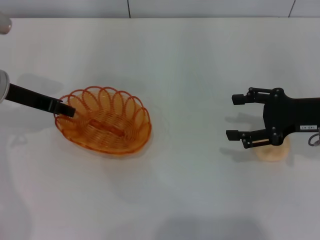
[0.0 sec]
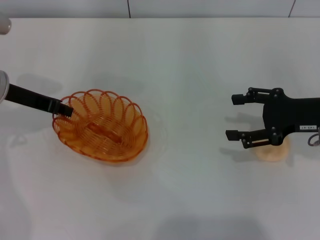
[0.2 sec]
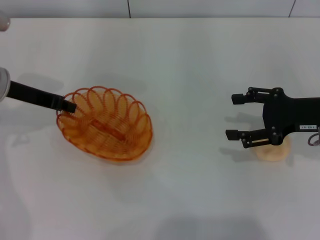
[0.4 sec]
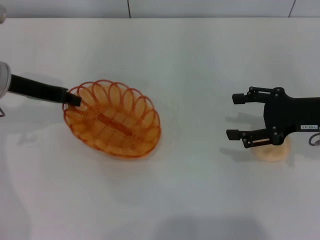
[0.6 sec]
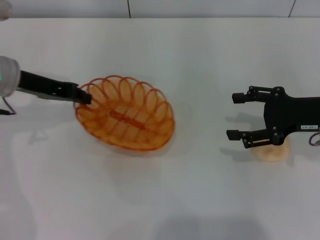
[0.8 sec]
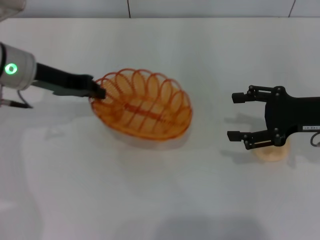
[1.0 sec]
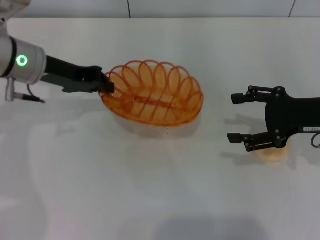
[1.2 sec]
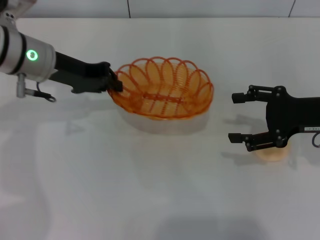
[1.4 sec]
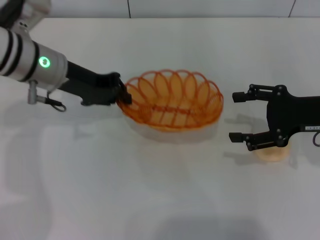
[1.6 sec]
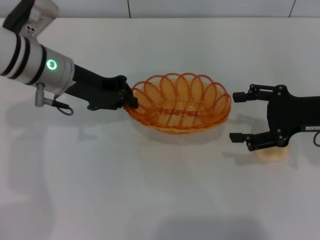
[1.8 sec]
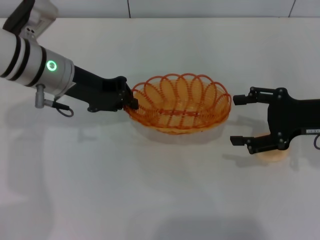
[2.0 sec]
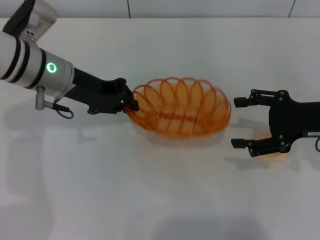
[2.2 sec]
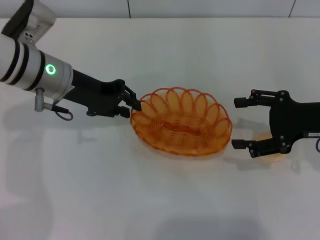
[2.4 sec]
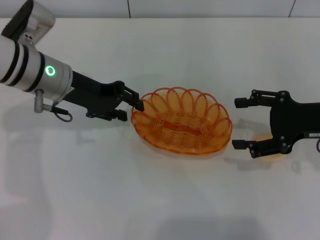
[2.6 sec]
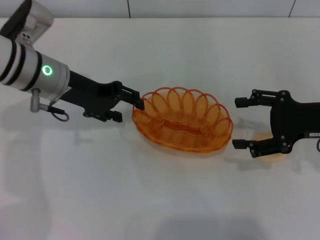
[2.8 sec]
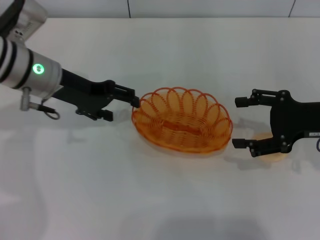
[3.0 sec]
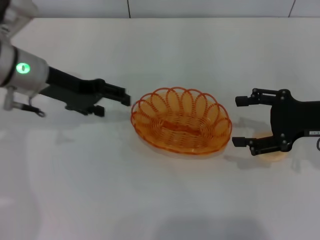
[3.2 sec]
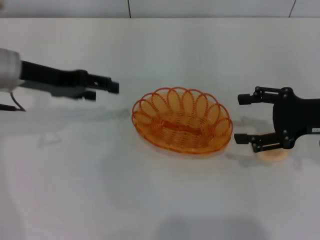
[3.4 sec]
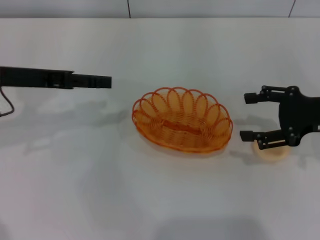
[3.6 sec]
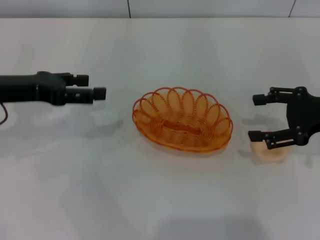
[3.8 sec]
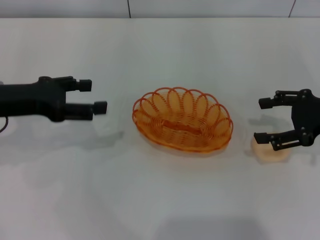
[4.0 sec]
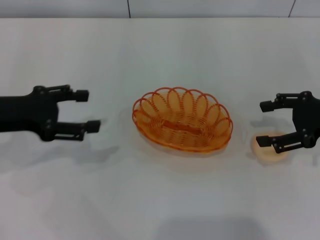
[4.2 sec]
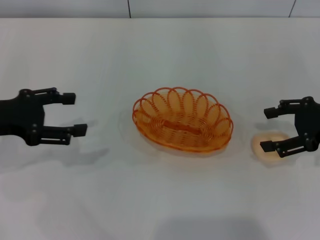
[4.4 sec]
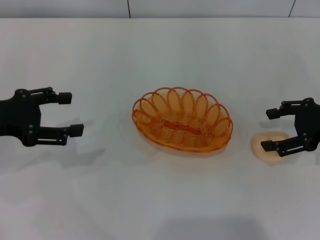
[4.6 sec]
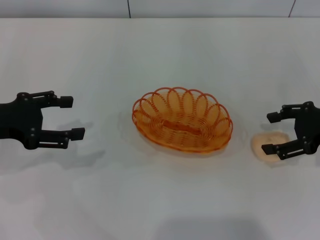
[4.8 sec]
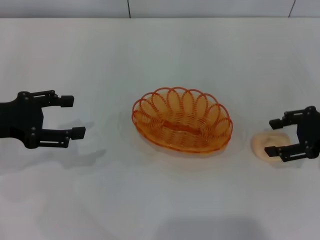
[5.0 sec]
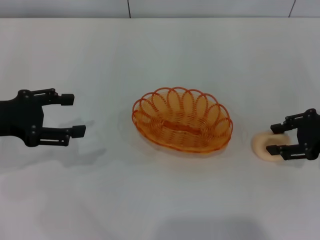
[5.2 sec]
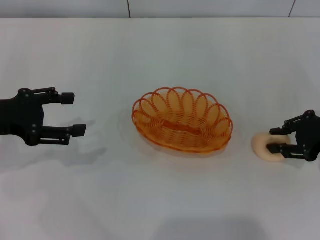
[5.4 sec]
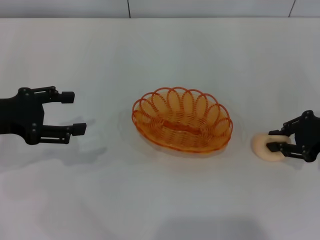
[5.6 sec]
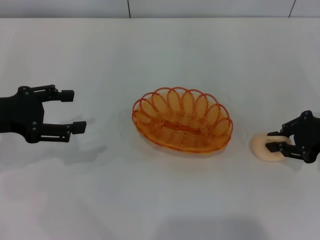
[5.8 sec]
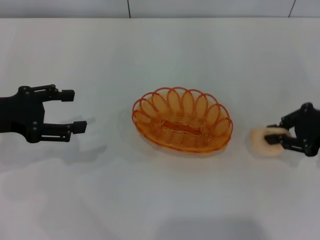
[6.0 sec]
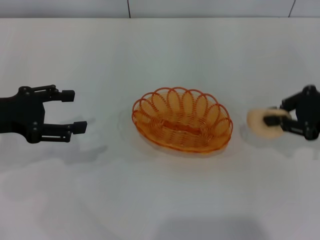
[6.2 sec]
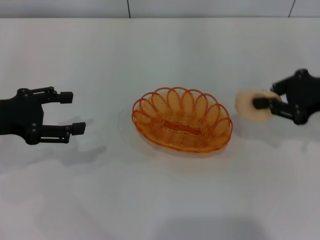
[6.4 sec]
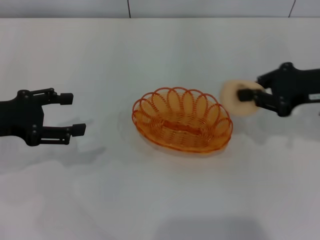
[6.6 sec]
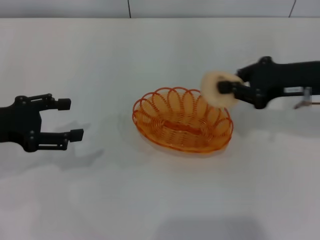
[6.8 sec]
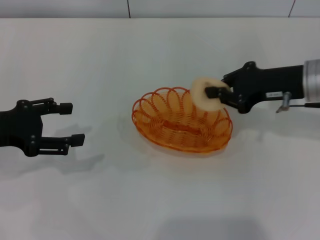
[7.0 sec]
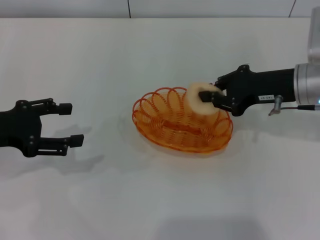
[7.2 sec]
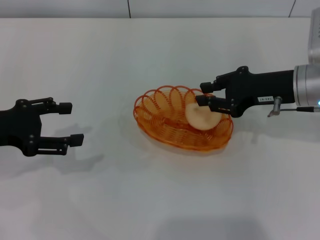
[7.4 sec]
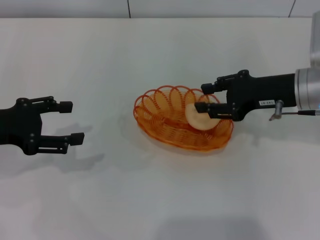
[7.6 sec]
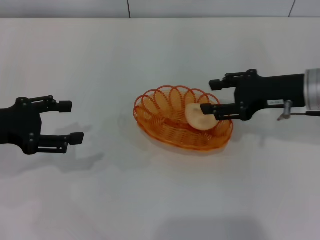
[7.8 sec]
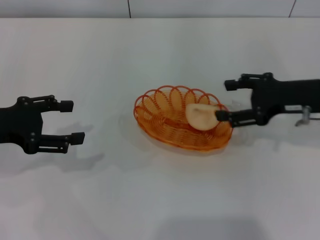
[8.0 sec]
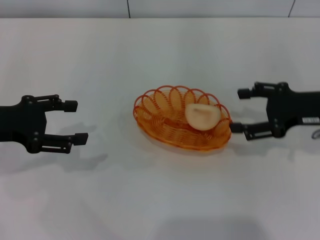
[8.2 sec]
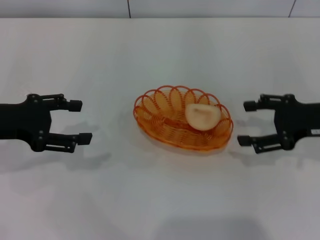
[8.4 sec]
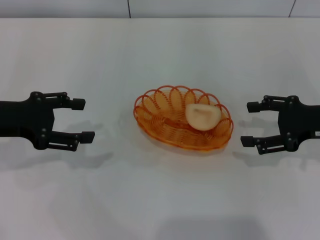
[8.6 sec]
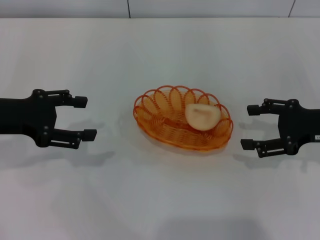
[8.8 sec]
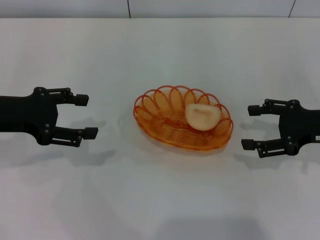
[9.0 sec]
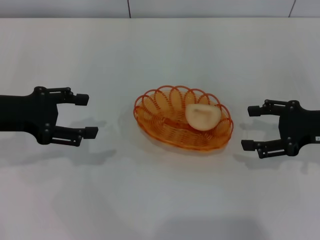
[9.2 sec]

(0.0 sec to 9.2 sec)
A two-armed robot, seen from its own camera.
Step, 1.0 sec - 3.0 sec: Place the basket in the center of view with the left gripper.
Step, 3.2 sec - 6.2 sec: Pick up the egg yolk pastry with the right gripper.
Step, 6.4 sec - 7.8 sec: Place the egg yolk pastry into the basket with the right gripper.
0.0 sec - 1.6 sec: The left gripper goes some 10 cm to the right, and closes.
1.6 sec - 3.0 sec: The left gripper opens its fingers.
3.0 sec - 4.6 sec: The left gripper heads to the left and backward, covering approximately 15 cm.
4.6 sec - 6.2 sec: The right gripper closes up.
6.2 sec - 7.6 sec: The right gripper moves to the left, some 10 cm.
7.6 sec - 9.2 sec: The right gripper heads to the right, covering about 10 cm, and opens up.
